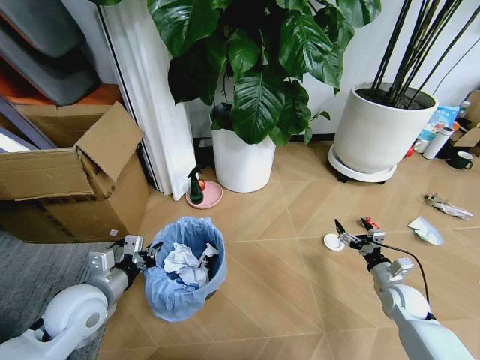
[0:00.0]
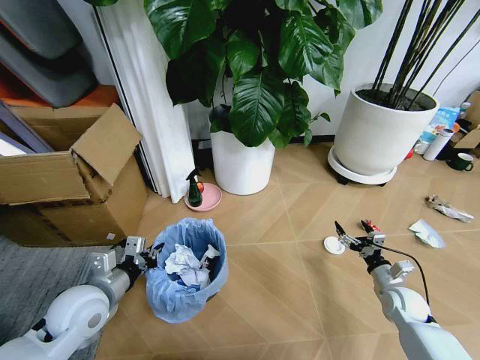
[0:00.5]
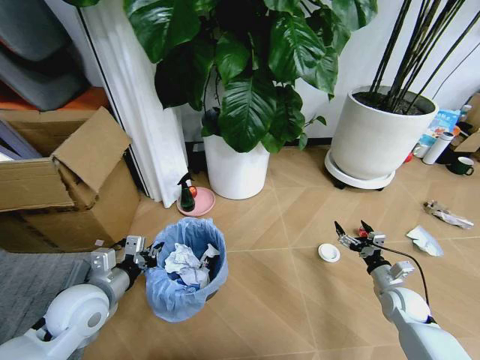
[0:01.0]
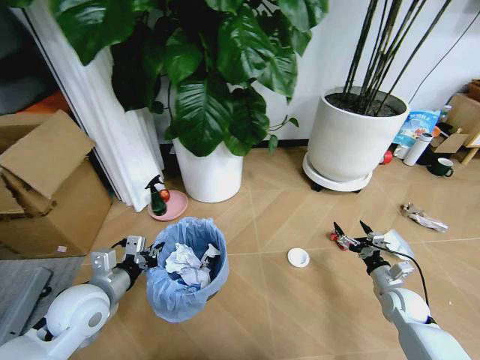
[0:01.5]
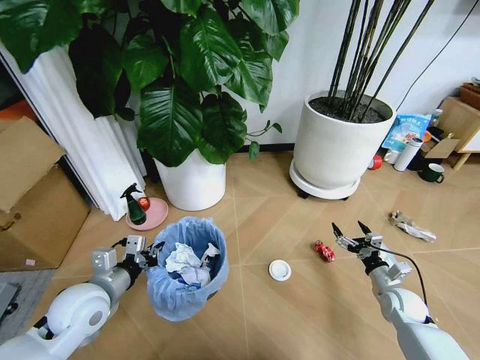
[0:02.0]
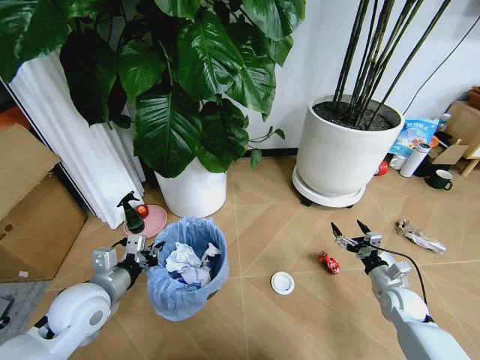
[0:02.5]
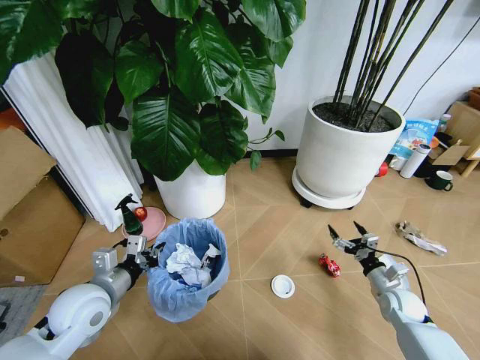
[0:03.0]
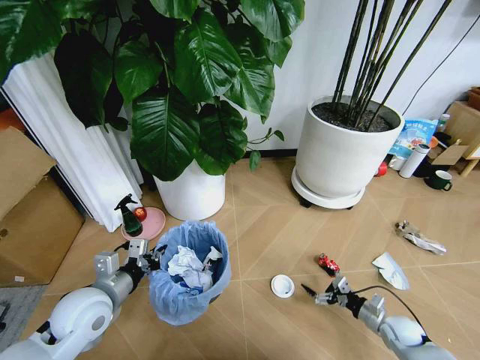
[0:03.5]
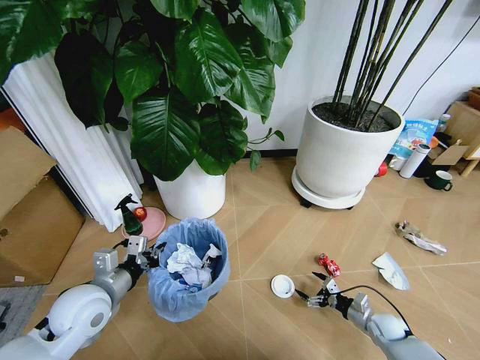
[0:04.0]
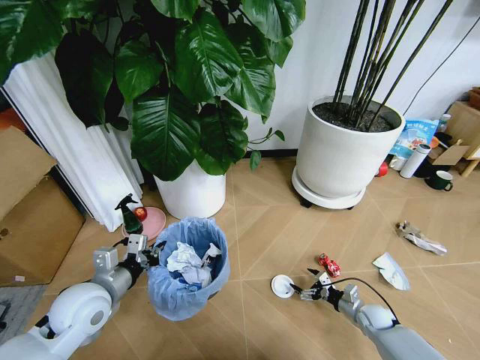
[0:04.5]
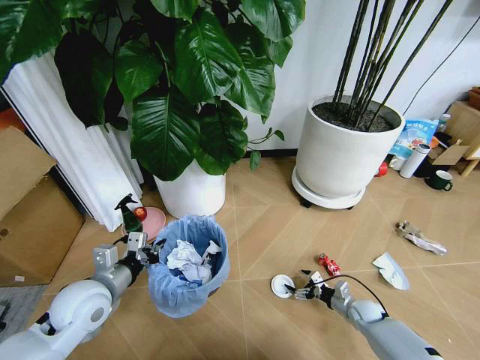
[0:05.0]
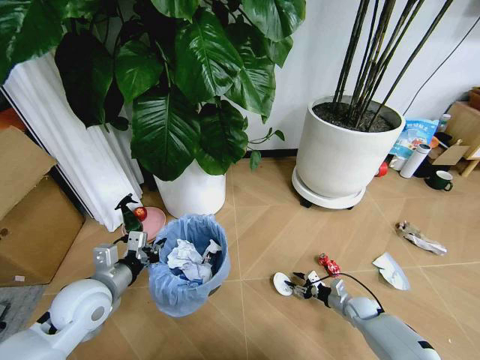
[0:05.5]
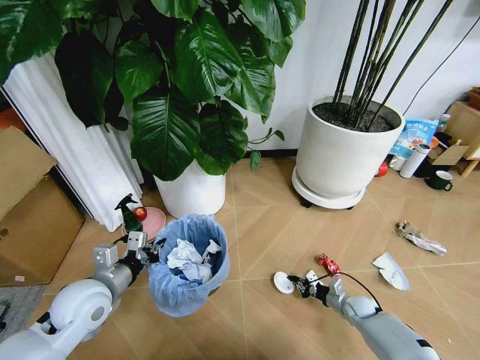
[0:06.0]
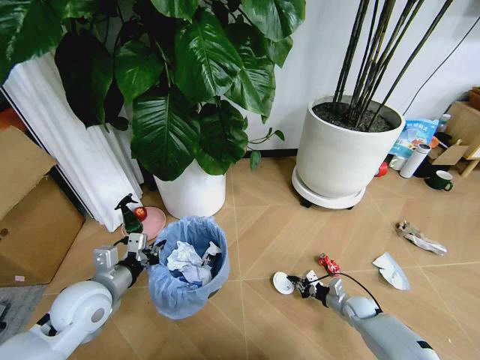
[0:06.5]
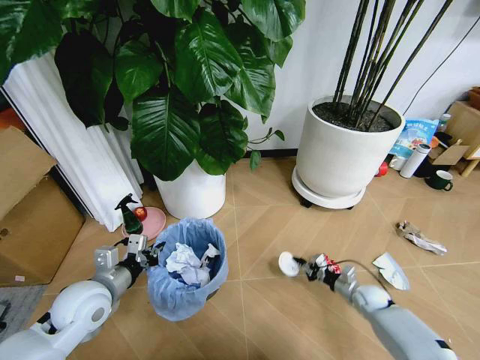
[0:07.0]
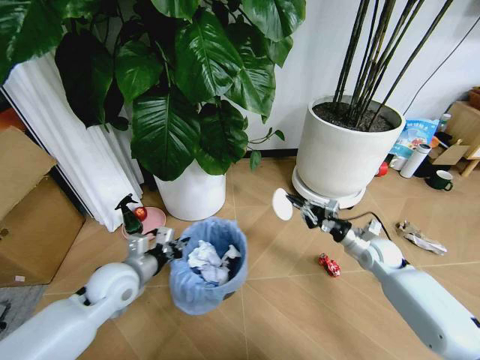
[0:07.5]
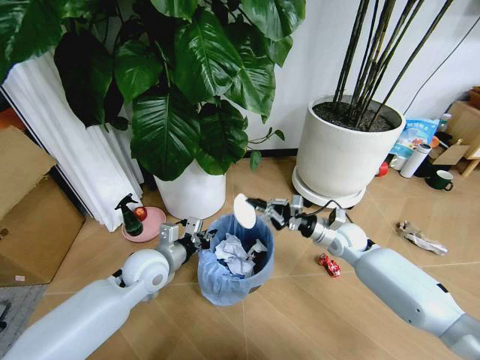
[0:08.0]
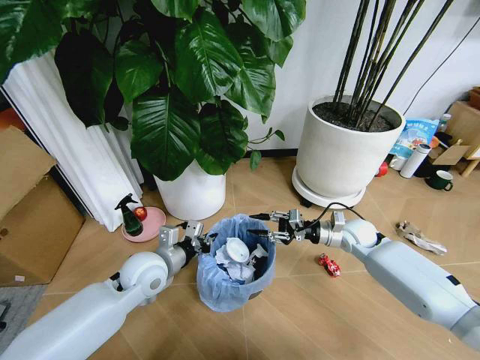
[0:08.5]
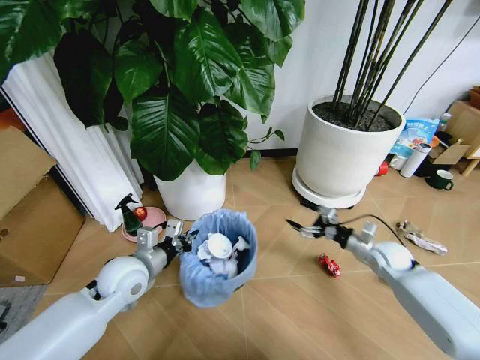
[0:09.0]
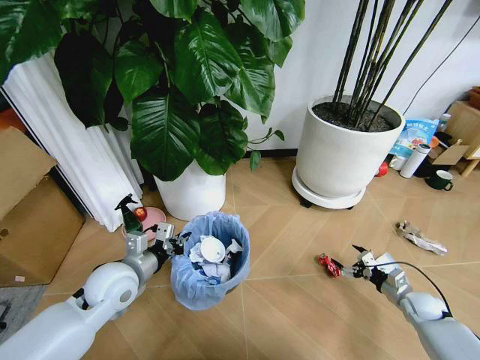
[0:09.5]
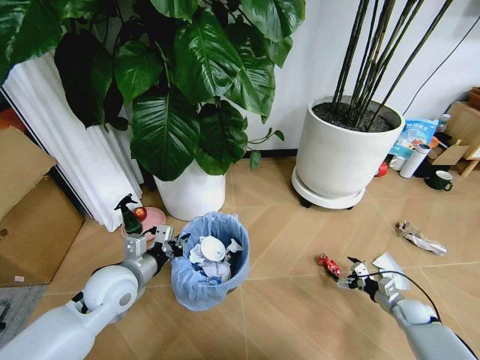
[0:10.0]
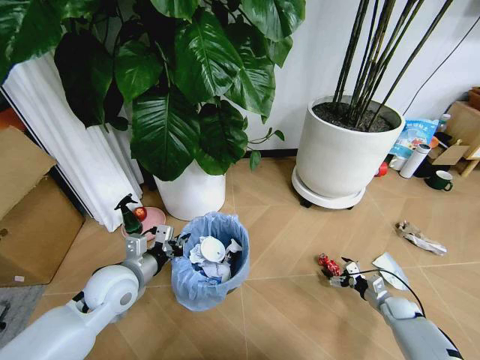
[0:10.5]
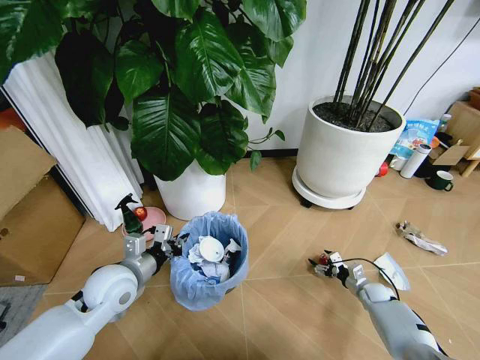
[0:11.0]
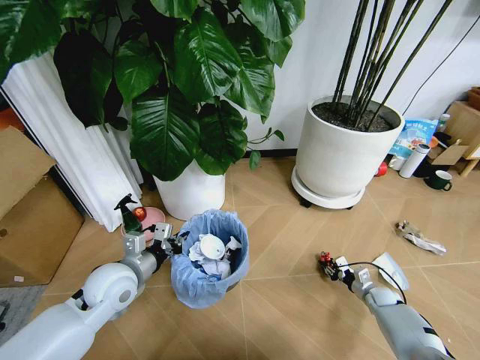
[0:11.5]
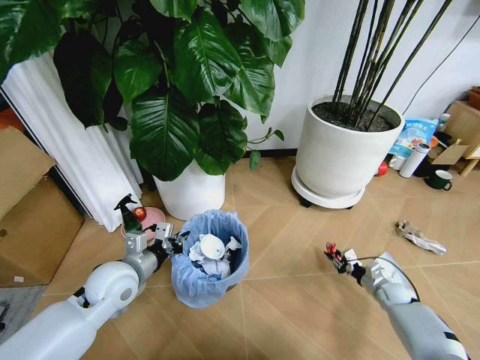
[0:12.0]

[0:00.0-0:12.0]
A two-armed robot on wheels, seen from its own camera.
Task of the whole recording: Pick up the trash bin and place the garbage on the floor into it.
0:02.0 to 0:04.0: The right gripper shifts approximately 10 cm downward.
0:04.0 to 0:06.0: The right gripper is displaced forward by approximately 5 cm, and closes up.
0:06.0 to 0:08.0: The left gripper goes roughly 10 cm to the right and forward; the right gripper shifts roughly 25 cm upward and forward.
0:08.0 to 0:10.0: The left gripper goes approximately 5 cm to the left. Meanwhile the right gripper travels to the right, downward and backward by about 30 cm, and opens.
0:10.0 to 0:12.0: The right gripper moves forward, some 5 cm, and closes its fingers.

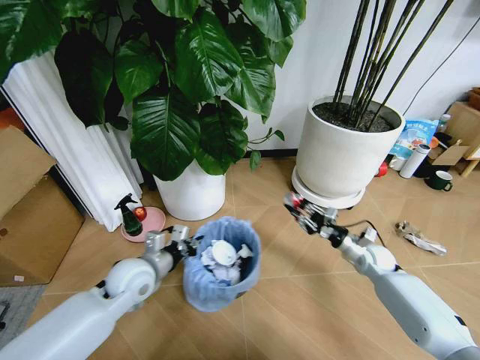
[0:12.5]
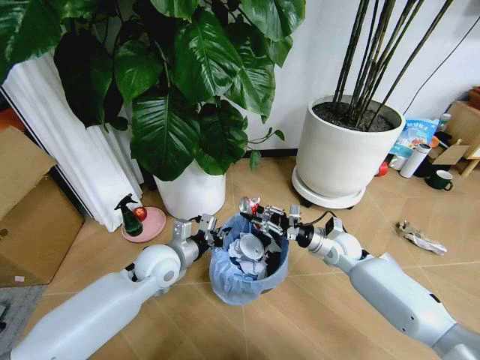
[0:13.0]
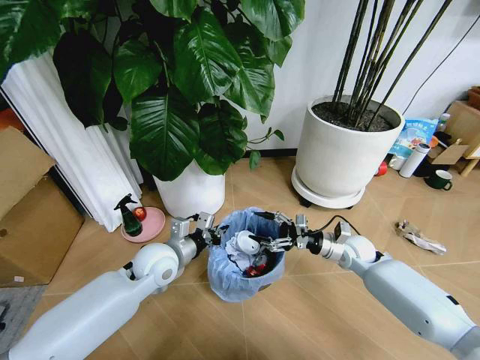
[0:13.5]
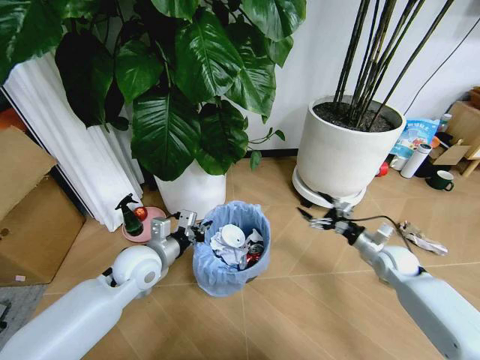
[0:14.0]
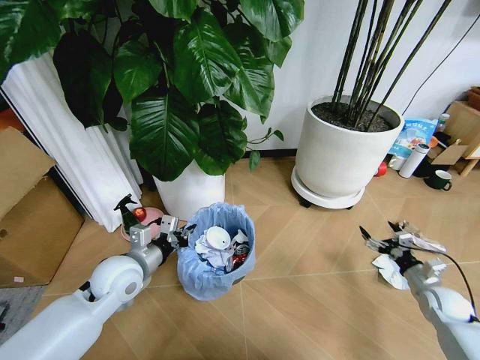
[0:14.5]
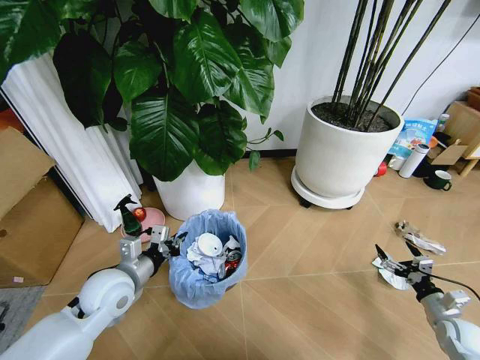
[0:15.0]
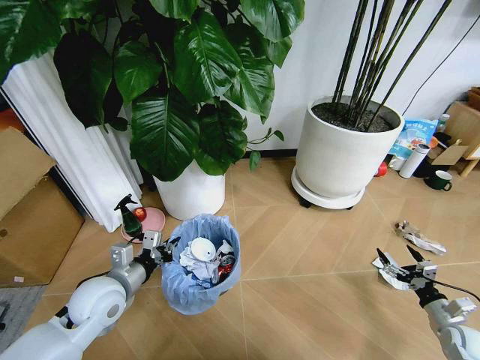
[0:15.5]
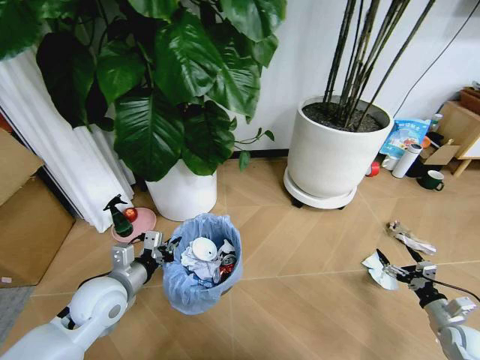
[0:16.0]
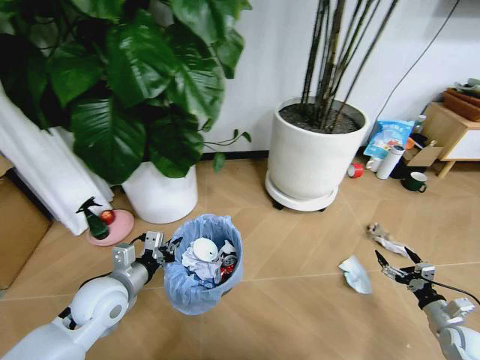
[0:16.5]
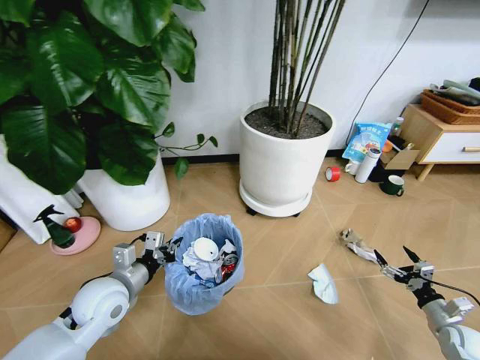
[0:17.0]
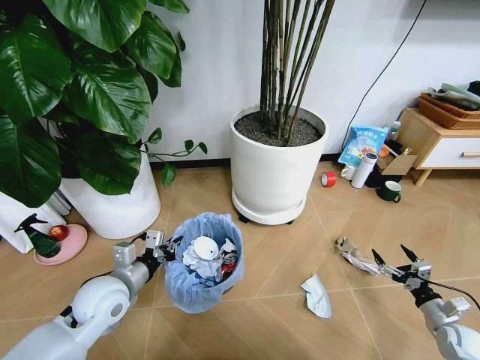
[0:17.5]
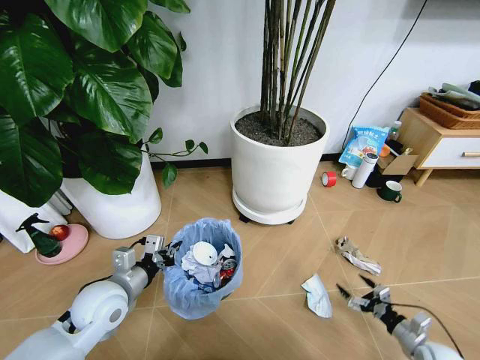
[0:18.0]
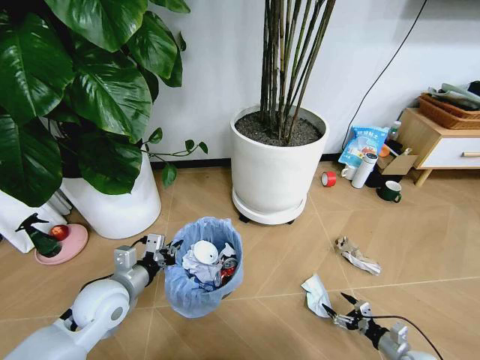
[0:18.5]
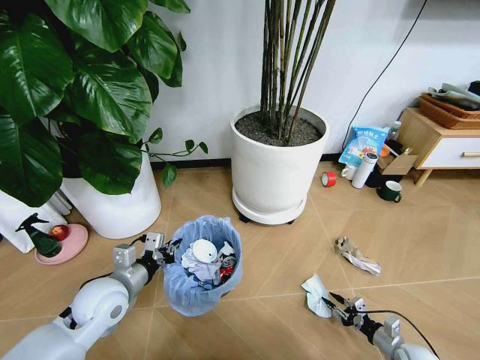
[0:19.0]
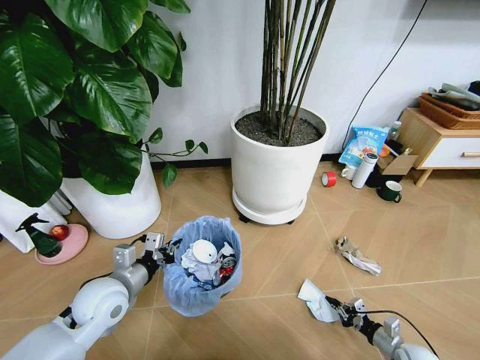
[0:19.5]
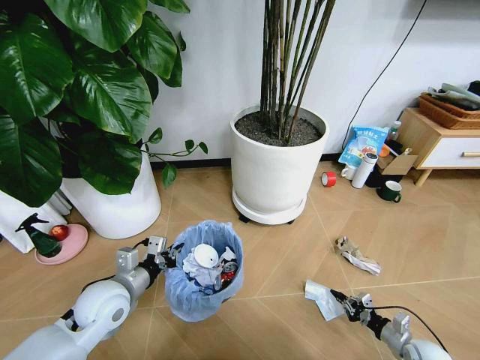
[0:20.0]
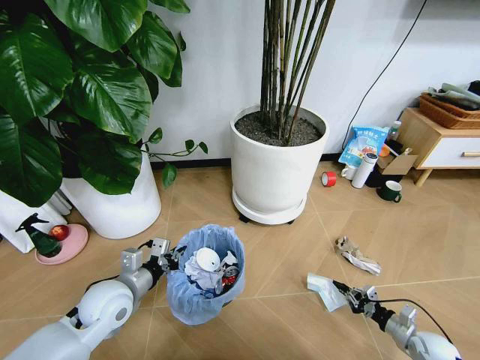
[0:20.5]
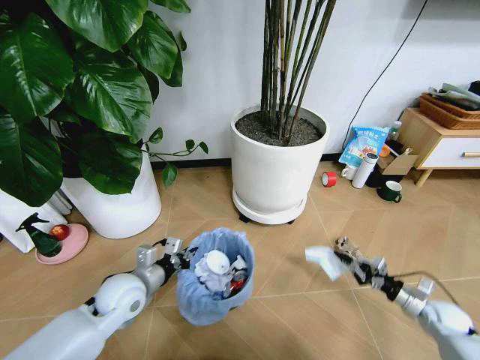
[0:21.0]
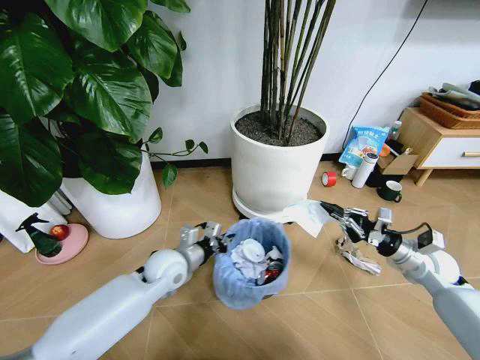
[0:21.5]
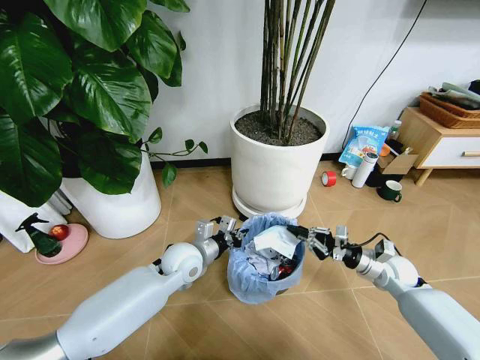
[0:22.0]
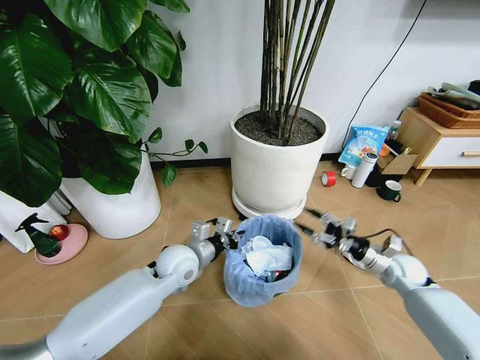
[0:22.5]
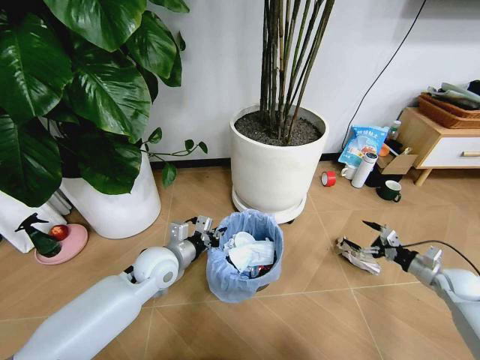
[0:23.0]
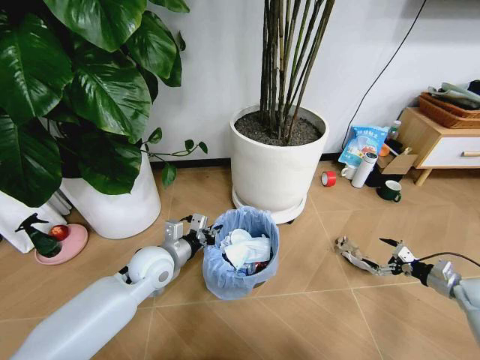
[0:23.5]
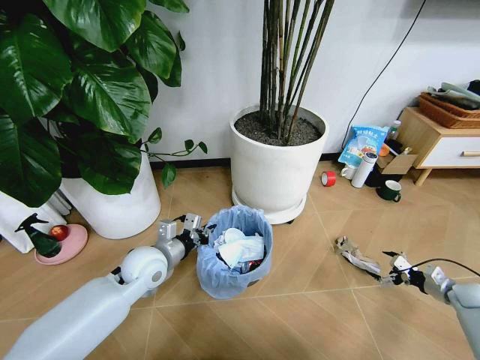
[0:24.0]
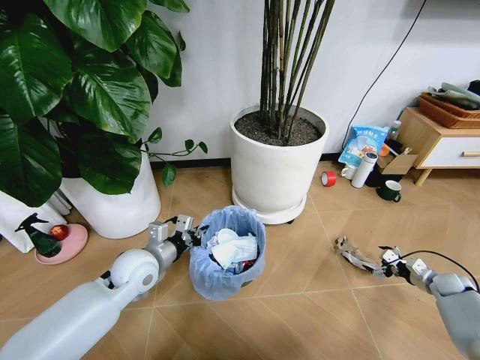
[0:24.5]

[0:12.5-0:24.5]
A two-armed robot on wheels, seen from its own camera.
Task of the whole recording: Pick up the trash bin and place the garbage on the floor into it.
0:12.5 to 0:14.5: The right gripper moves backward and to the right, about 15 cm, and opens its fingers.
0:14.5 to 0:16.5: The right gripper is displaced backward by approximately 10 cm.
0:16.5 to 0:18.5: The right gripper is displaced downward and to the left by some 10 cm.
0:18.5 to 0:20.5: The right gripper changes place by approximately 5 cm, and closes its fingers.
0:20.5 to 0:22.5: The left gripper shifts some 15 cm to the right and forward, while the right gripper moves forward, upward and to the left, some 25 cm, and opens.
0:22.5 to 0:24.5: The left gripper is displaced to the left by roughly 10 cm. Meanwhile the right gripper is displaced to the right and downward by approximately 20 cm, and opens up.

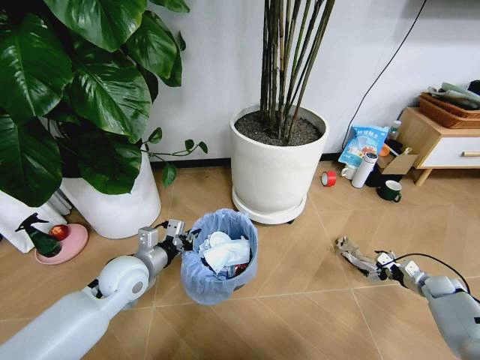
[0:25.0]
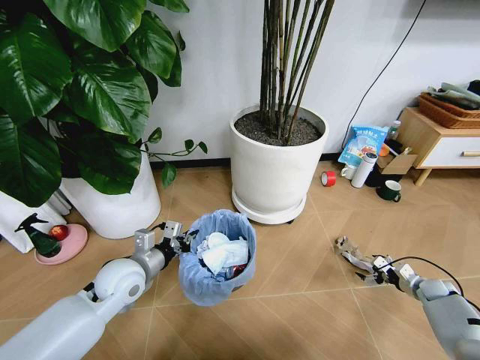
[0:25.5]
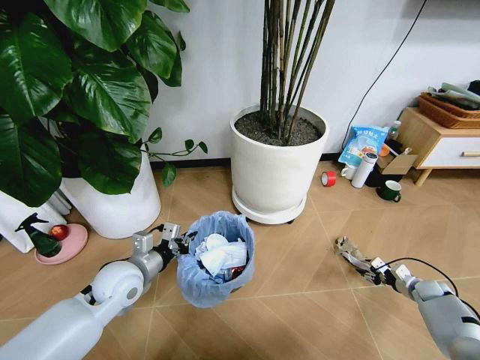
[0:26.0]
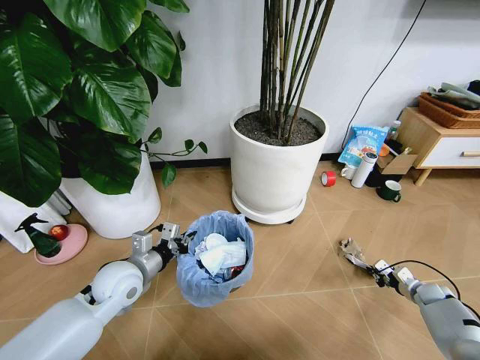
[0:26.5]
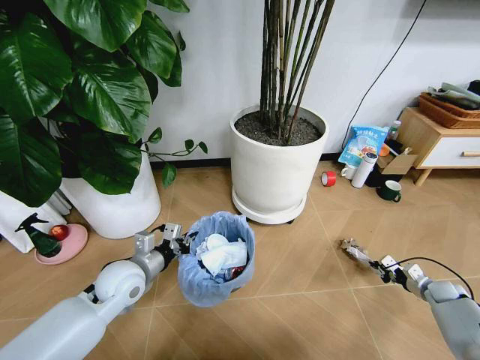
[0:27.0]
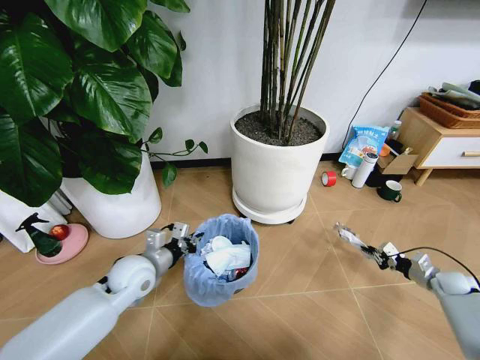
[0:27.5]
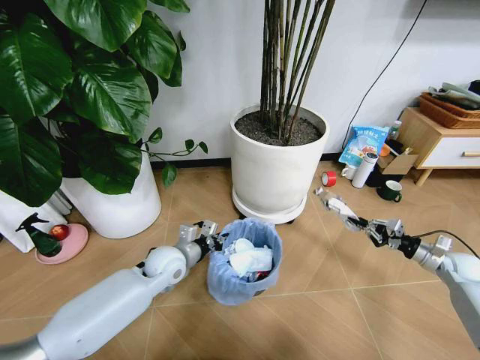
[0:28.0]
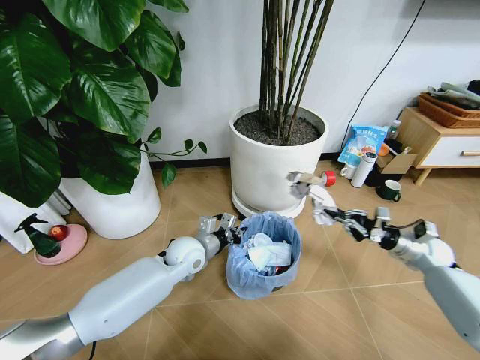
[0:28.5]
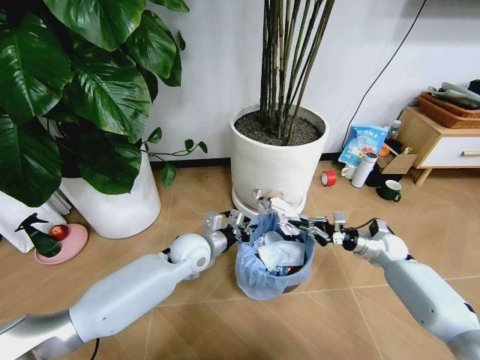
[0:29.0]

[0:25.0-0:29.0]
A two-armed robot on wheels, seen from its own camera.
Task of the whole recording: Pick up the trash bin and place the garbage on the floor into it.
0:25.0 to 0:27.0: The right gripper closes.
0:27.0 to 0:29.0: The left gripper goes approximately 15 cm to the right and forward. Meanwhile the right gripper moves to the left, forward and upward, roughly 25 cm.
